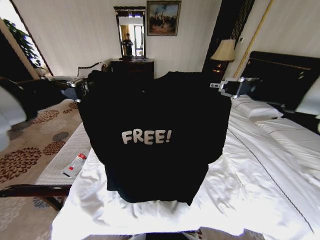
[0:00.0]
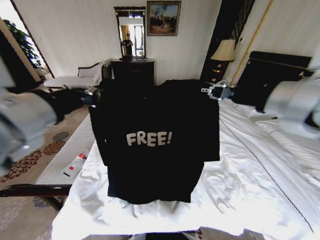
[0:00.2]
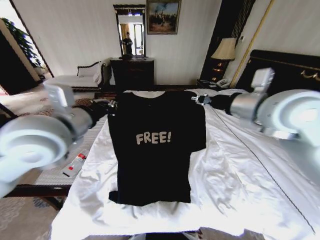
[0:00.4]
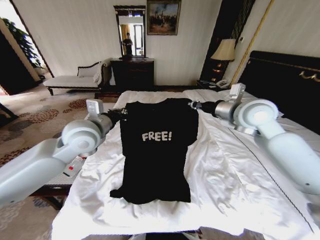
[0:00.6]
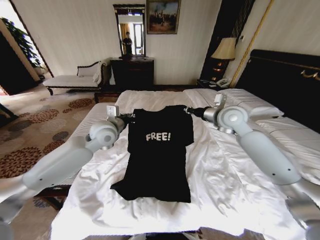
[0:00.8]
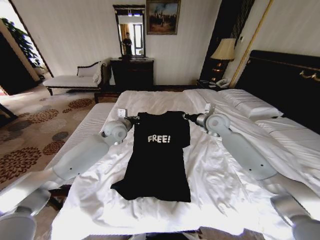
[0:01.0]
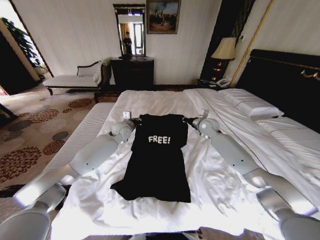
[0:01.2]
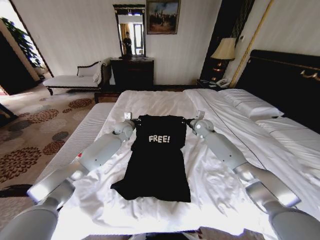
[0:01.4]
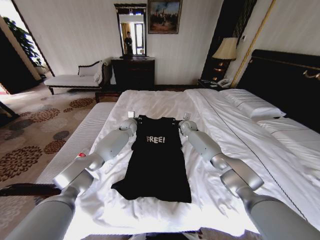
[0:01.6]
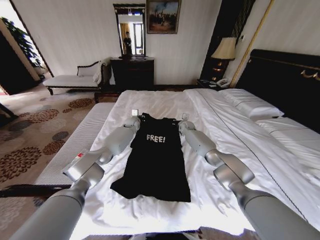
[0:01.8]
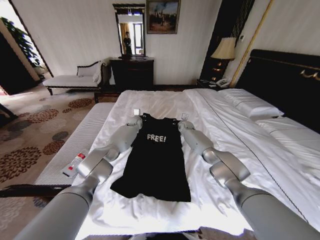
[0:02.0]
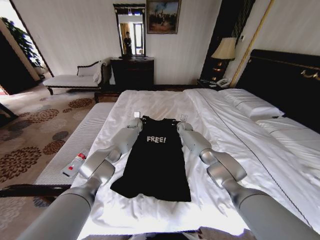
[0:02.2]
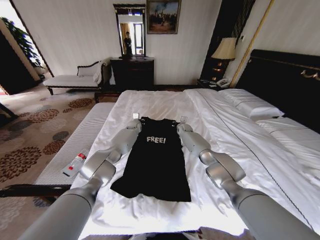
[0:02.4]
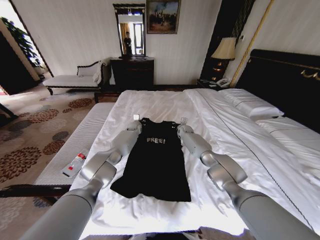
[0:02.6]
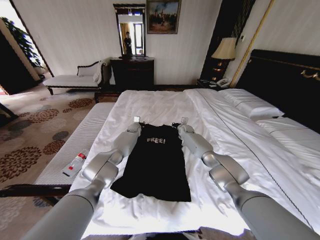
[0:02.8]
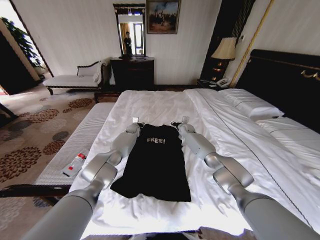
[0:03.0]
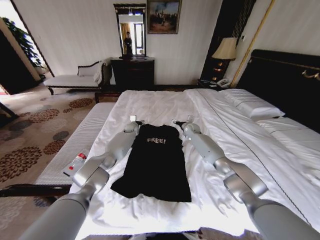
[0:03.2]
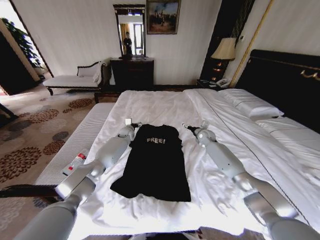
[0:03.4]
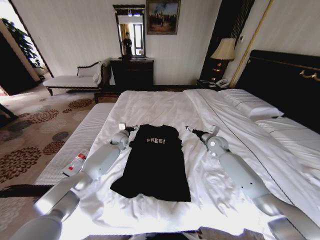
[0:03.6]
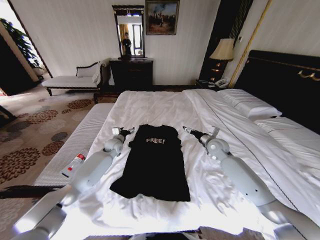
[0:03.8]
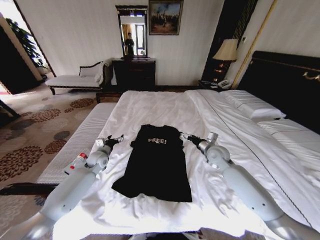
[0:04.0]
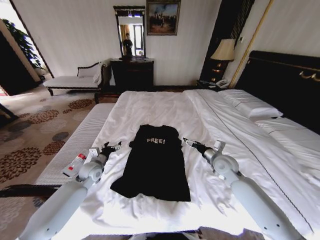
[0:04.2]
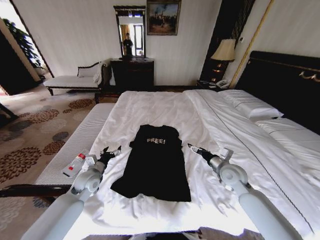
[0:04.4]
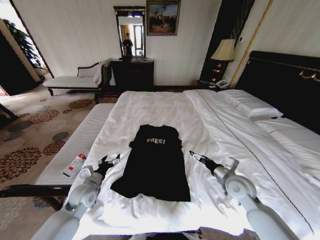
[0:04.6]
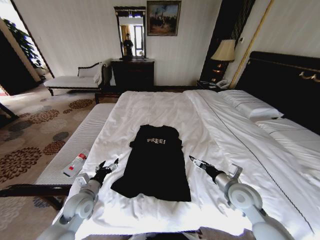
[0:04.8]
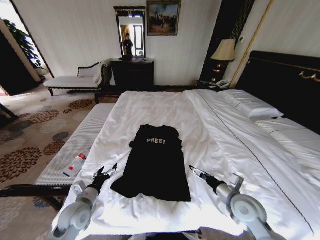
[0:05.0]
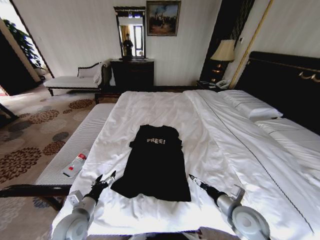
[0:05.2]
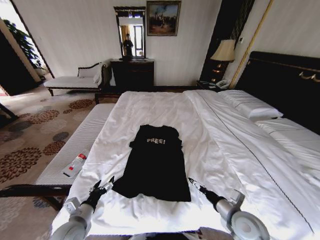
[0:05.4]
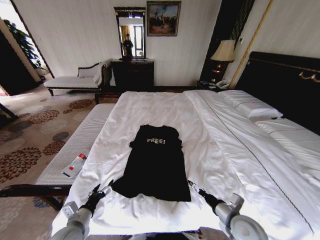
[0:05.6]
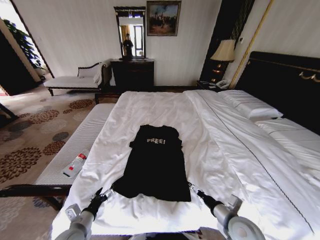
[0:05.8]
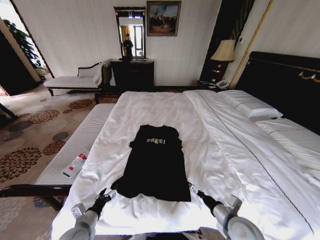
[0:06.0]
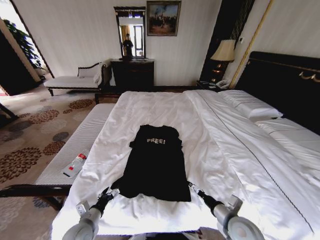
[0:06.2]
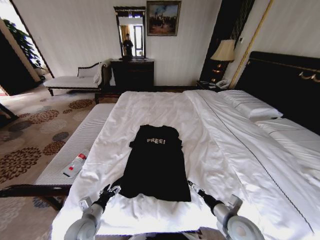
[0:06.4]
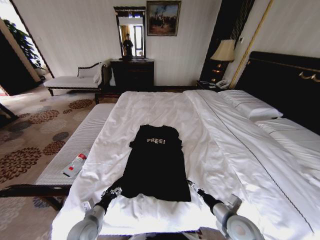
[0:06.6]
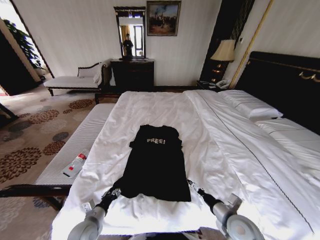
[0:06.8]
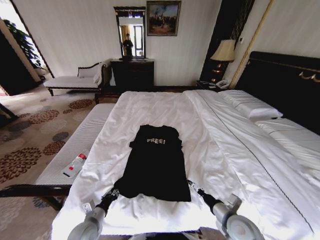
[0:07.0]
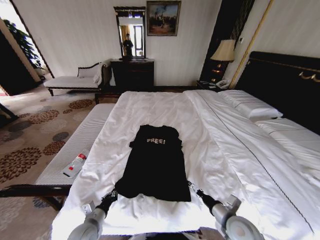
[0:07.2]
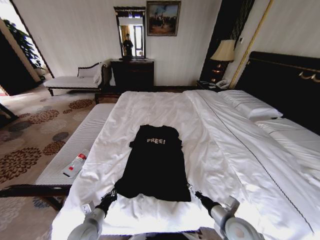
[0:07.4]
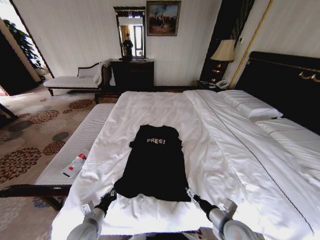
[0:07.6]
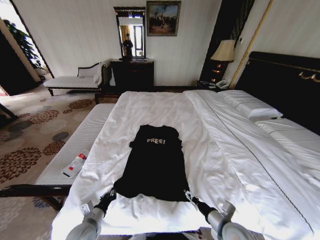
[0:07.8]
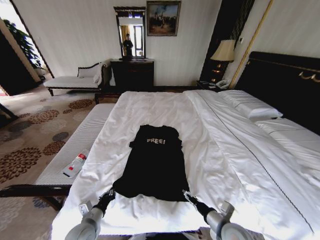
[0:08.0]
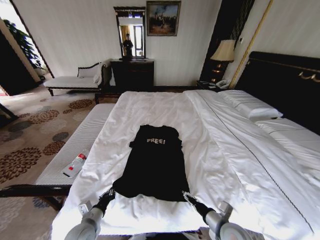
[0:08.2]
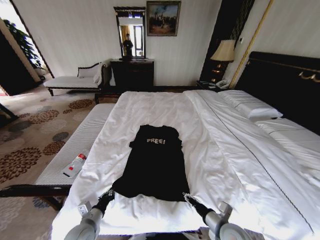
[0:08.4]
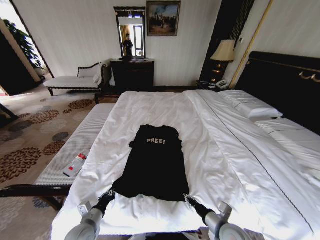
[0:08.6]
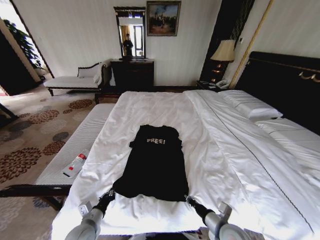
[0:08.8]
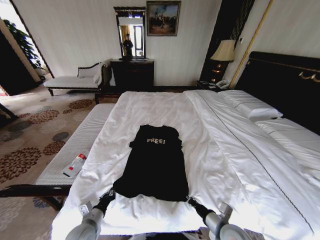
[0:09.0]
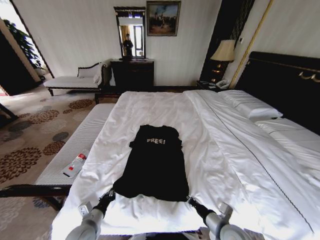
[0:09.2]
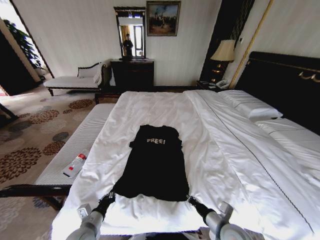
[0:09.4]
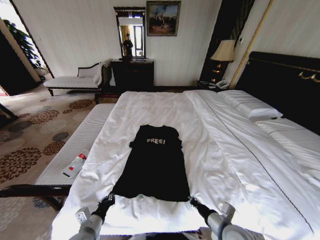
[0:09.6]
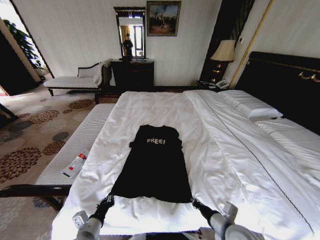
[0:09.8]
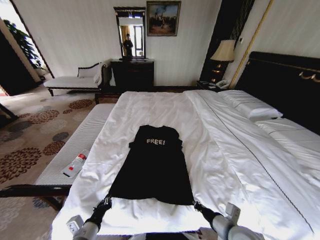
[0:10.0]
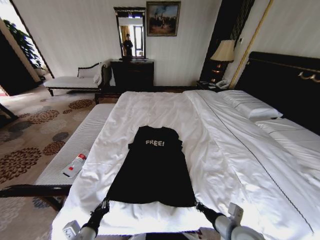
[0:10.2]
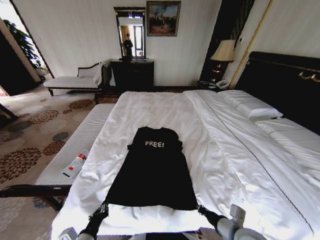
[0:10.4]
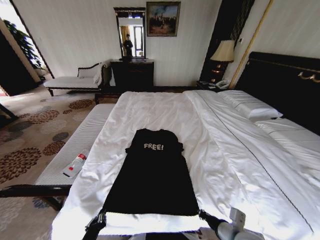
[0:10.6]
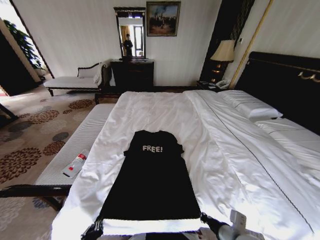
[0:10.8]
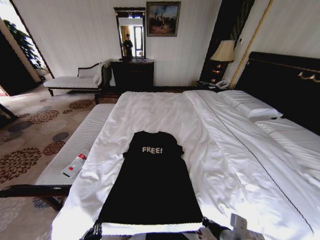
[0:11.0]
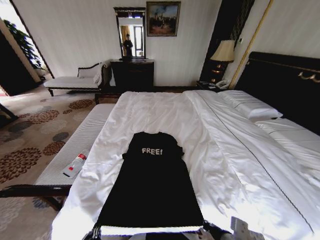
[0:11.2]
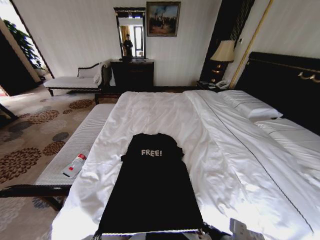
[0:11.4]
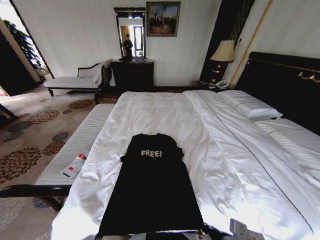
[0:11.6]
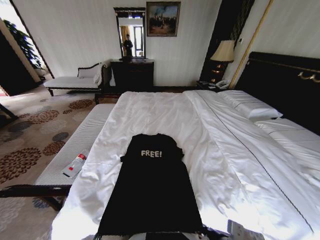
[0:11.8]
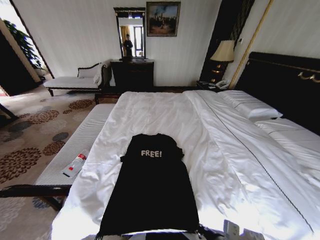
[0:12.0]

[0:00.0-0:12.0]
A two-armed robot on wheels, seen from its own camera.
Task of the whole recording: Fold the clothes on the bed.
0:00.0 to 0:01.6: The two grippers go roughly 60 cm forward and downward.
0:01.6 to 0:03.0: The left gripper moves downward and forward, roughly 10 cm, and opens up, while the right gripper ends up roughly 5 cm from where it was, and opens.
0:03.0 to 0:04.4: The left gripper moves backward and to the left, about 40 cm; the right gripper shifts about 35 cm backward, and opens its fingers.
0:04.4 to 0:06.0: The grippers both shift backward by approximately 20 cm.
0:06.0 to 0:07.6: The left gripper closes.
0:07.6 to 0:09.0: The right gripper closes up.
0:09.0 to 0:10.4: The right gripper goes roughly 5 cm upward. Meanwhile the left gripper shifts about 10 cm backward.
0:10.4 to 0:12.0: The right gripper changes place by some 5 cm. The left gripper is displaced backward by some 10 cm.

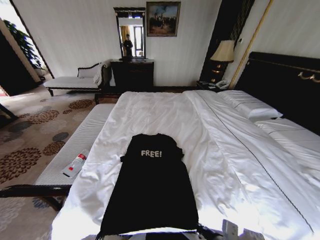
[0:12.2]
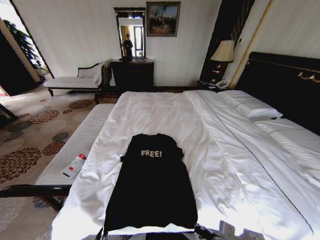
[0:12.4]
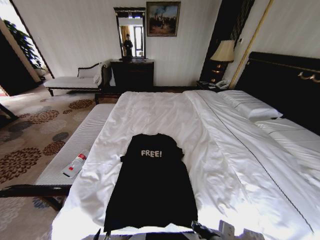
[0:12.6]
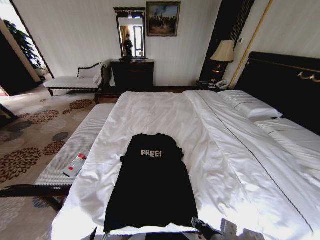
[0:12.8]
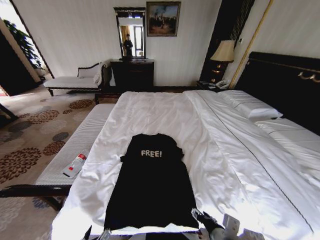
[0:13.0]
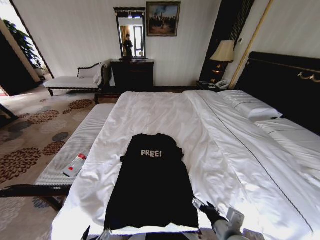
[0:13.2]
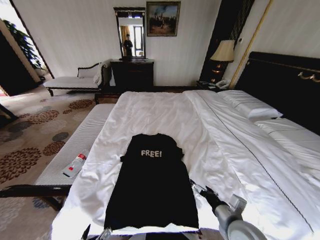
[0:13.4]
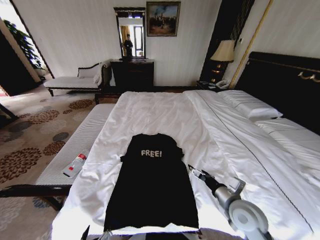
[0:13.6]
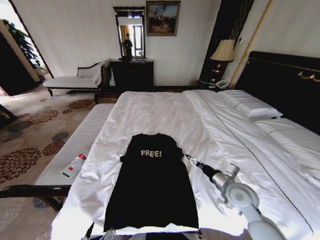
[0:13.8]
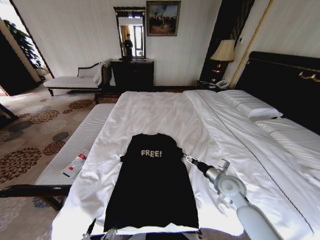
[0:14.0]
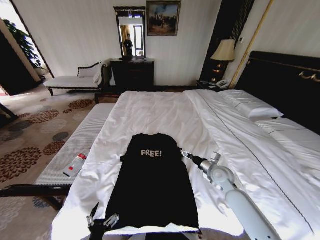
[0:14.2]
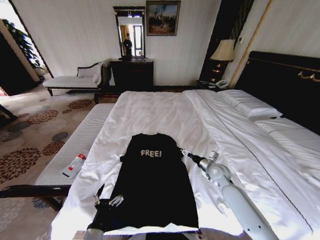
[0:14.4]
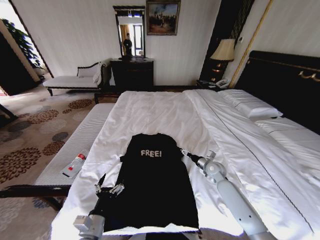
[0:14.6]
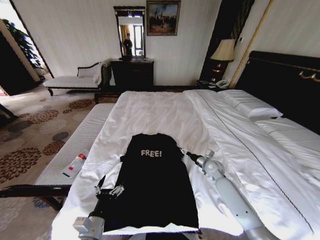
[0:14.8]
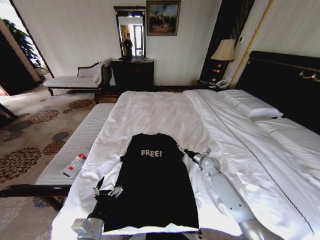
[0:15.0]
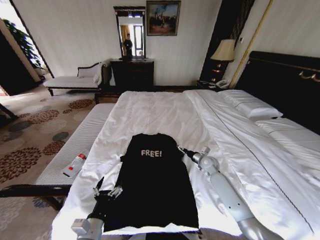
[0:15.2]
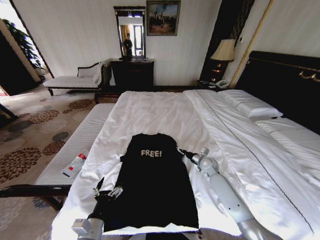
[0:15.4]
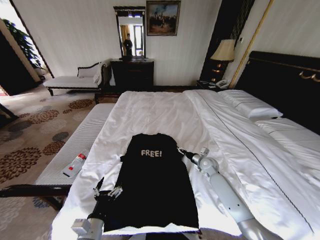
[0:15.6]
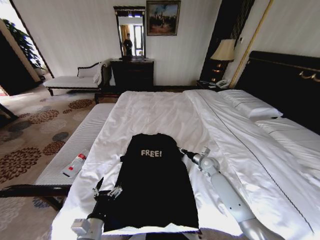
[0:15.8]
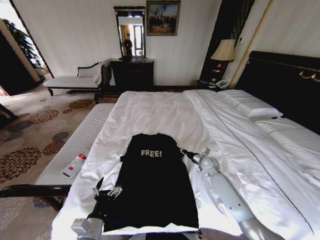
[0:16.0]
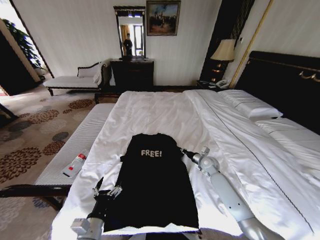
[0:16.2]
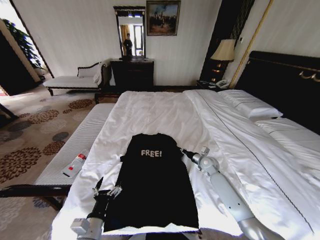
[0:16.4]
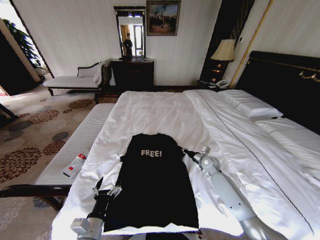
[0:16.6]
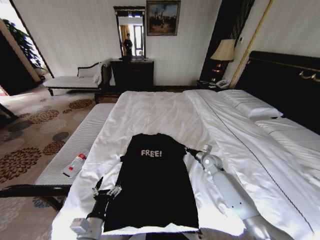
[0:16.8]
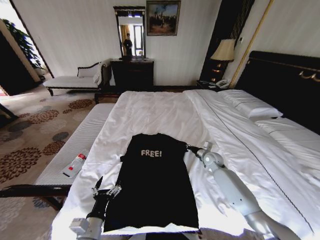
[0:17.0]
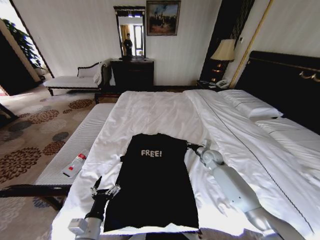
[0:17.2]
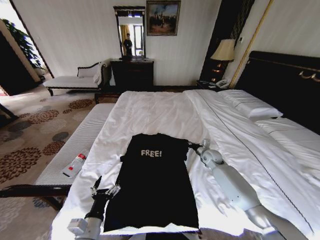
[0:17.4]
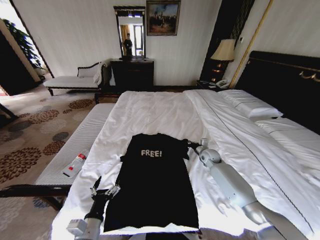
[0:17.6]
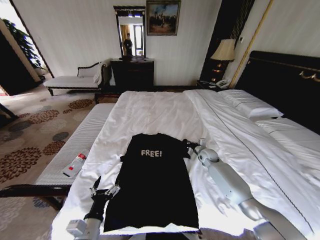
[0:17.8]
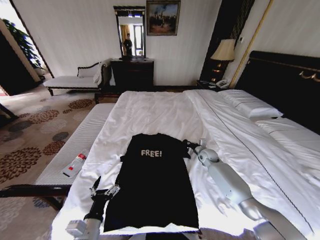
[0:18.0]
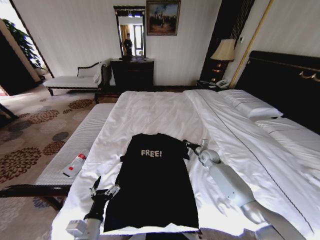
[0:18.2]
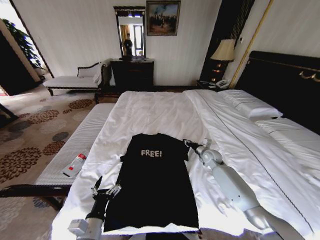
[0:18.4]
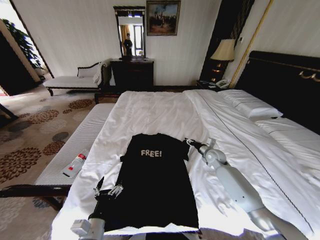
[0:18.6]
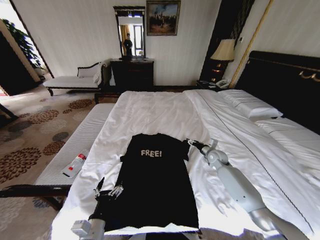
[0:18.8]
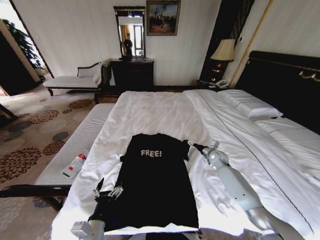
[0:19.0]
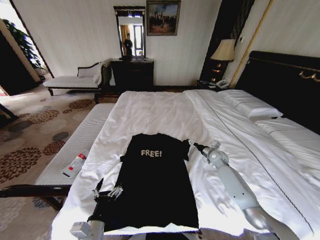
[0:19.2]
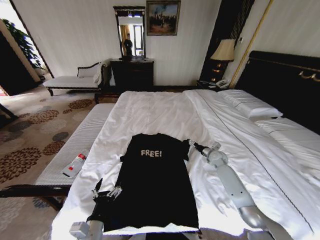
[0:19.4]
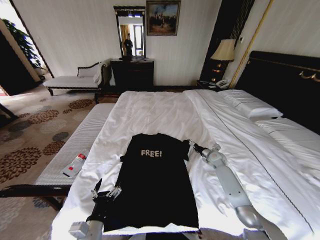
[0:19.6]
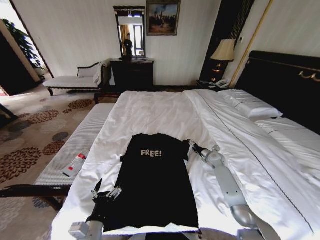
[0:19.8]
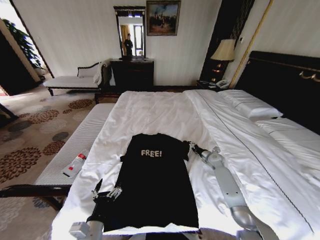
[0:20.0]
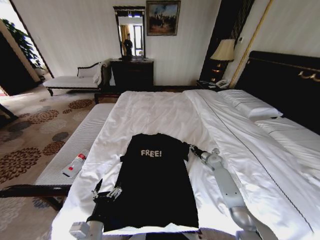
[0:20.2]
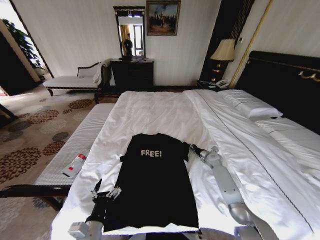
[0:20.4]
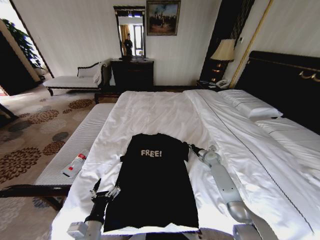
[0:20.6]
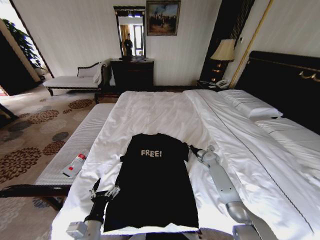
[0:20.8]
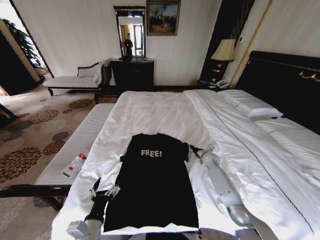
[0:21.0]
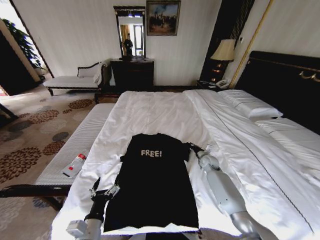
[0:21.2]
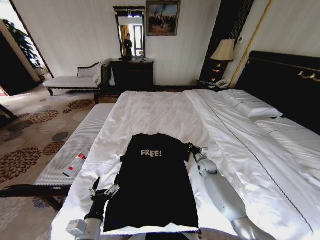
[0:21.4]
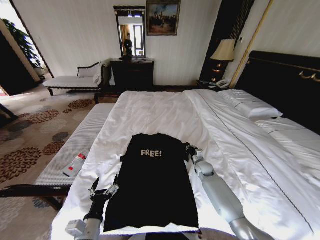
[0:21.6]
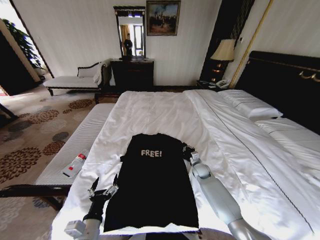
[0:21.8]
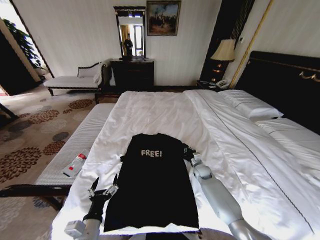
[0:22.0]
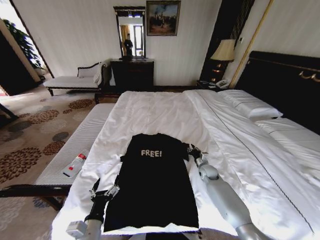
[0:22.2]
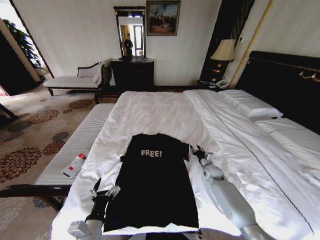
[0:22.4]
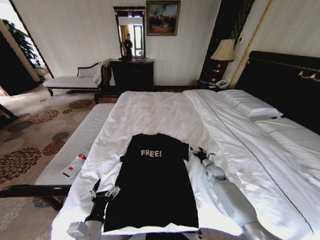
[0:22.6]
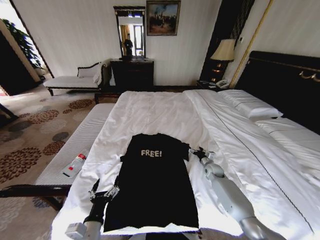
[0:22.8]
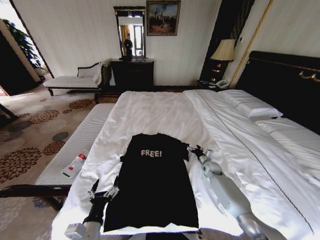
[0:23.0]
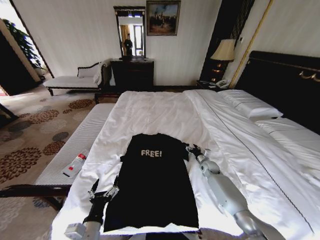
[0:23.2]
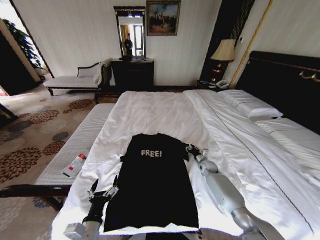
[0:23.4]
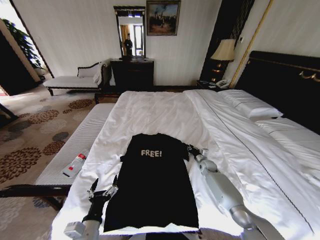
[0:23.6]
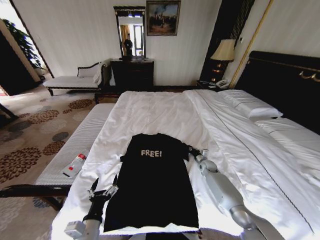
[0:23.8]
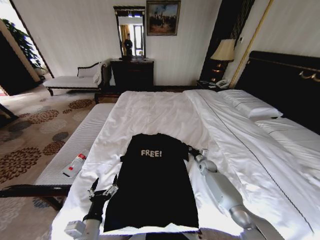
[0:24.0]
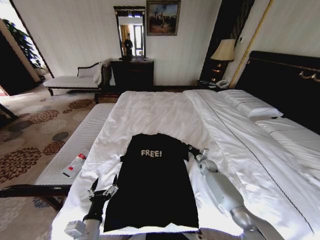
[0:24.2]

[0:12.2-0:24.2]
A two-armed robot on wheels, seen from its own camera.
Task of the whole recording: Fold the clothes on the bed.
0:12.2 to 0:13.8: The right gripper moves forward and to the right, about 20 cm, and opens its fingers; the left gripper opens up.
0:13.8 to 0:15.2: The left gripper travels forward by roughly 15 cm. The right gripper goes roughly 20 cm forward and downward.
0:15.2 to 0:16.6: The right gripper closes up.
0:18.2 to 0:19.8: The right gripper heads to the right, covering roughly 5 cm, and opens.
0:19.8 to 0:21.2: The right gripper heads to the left, covering about 5 cm, and closes up.
0:21.2 to 0:22.6: The right gripper ends up approximately 5 cm from where it was, and opens.
0:22.6 to 0:24.2: The right gripper changes place by roughly 5 cm, and closes up.
